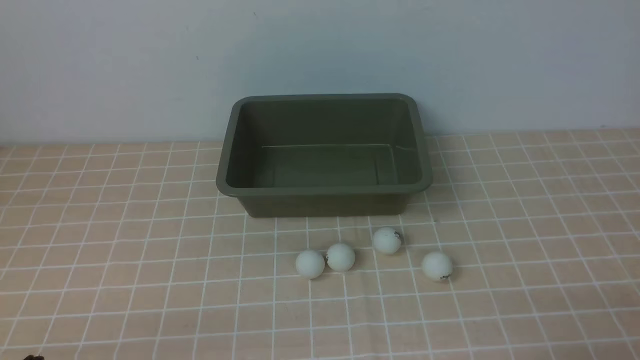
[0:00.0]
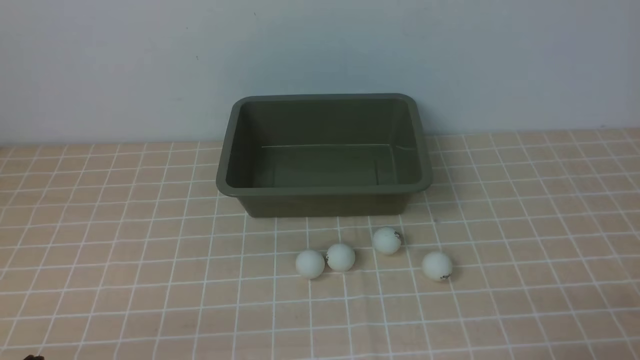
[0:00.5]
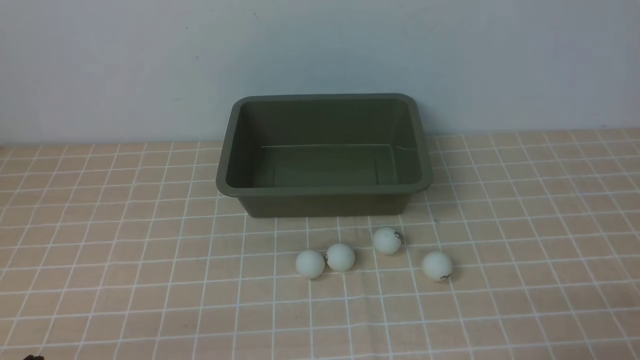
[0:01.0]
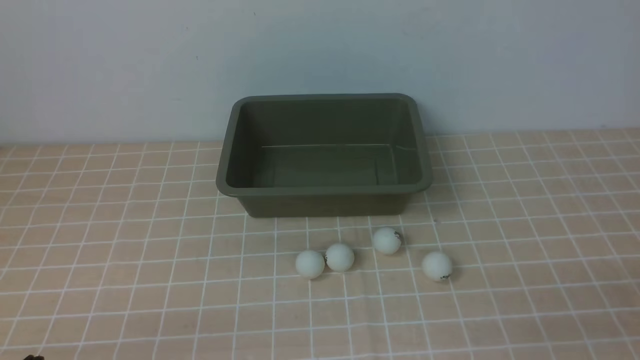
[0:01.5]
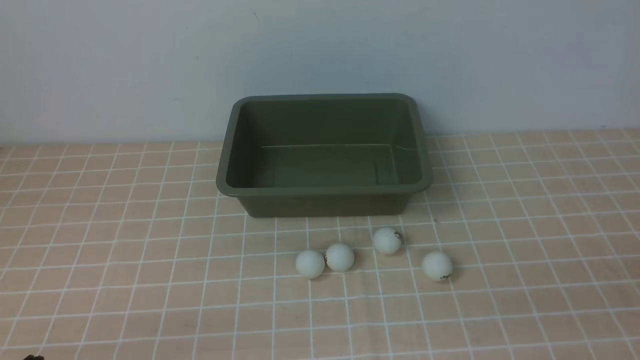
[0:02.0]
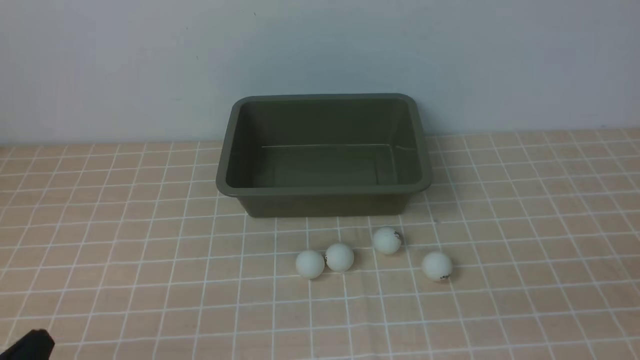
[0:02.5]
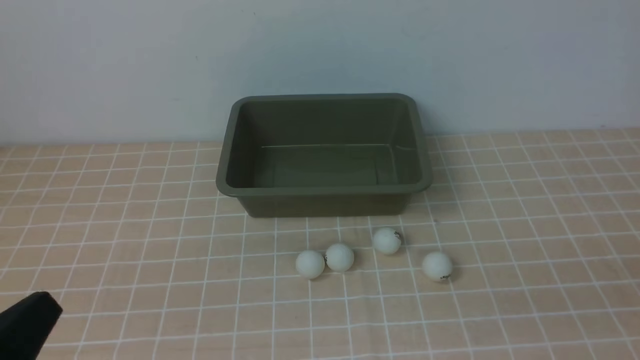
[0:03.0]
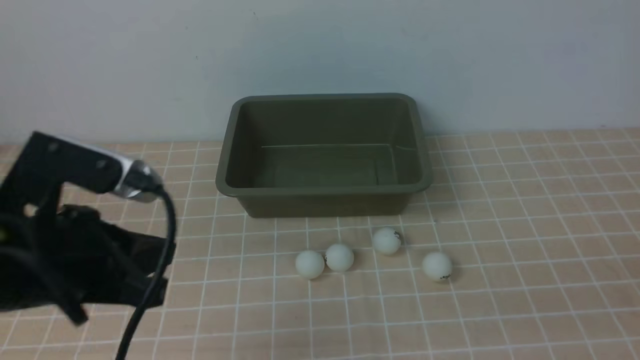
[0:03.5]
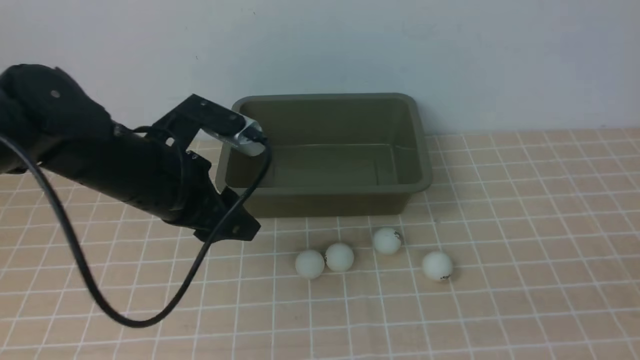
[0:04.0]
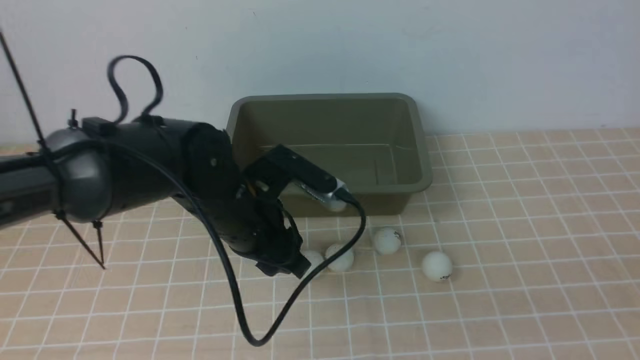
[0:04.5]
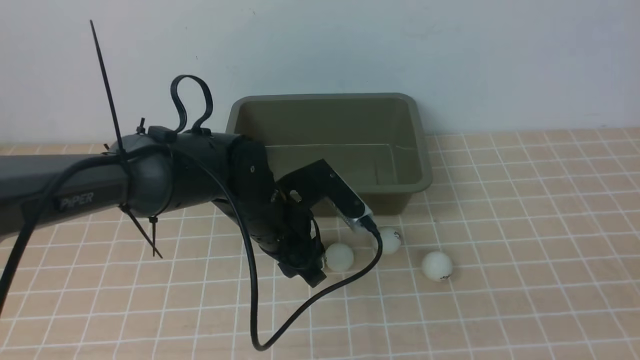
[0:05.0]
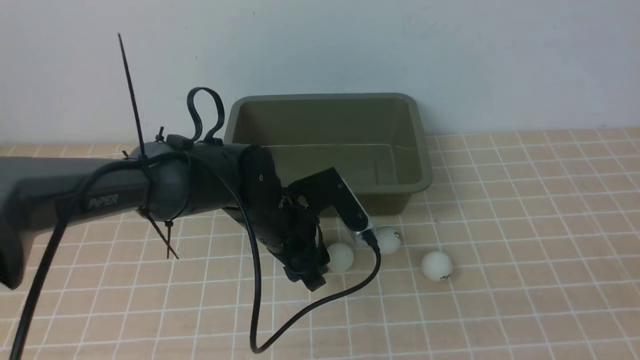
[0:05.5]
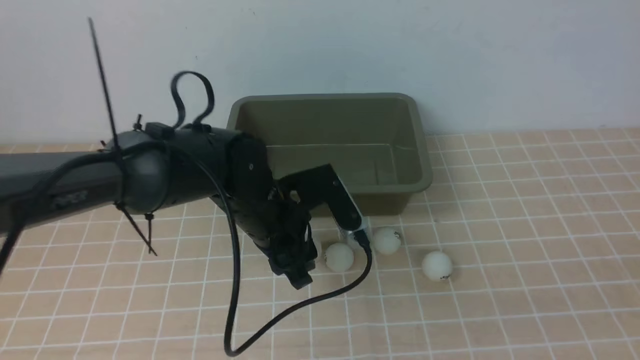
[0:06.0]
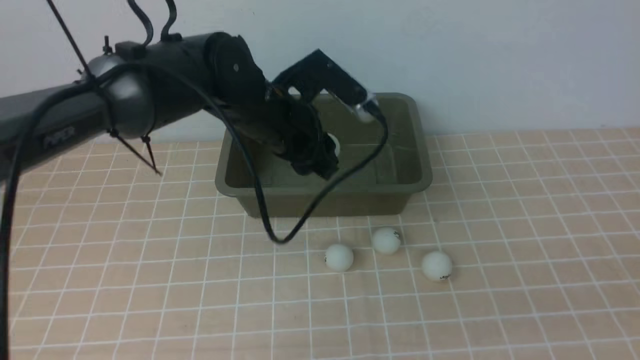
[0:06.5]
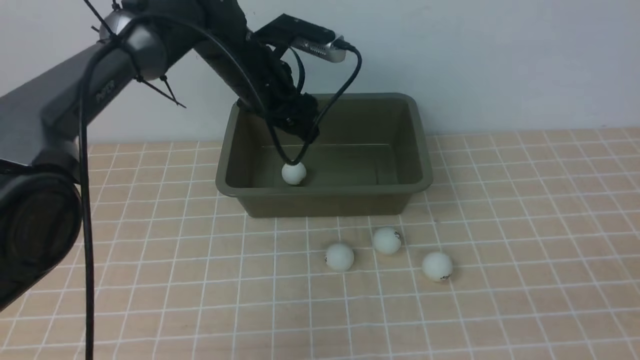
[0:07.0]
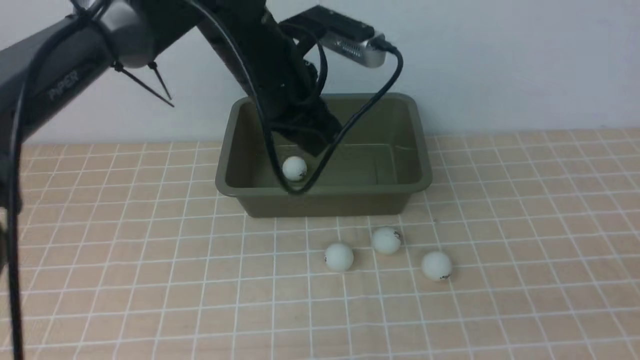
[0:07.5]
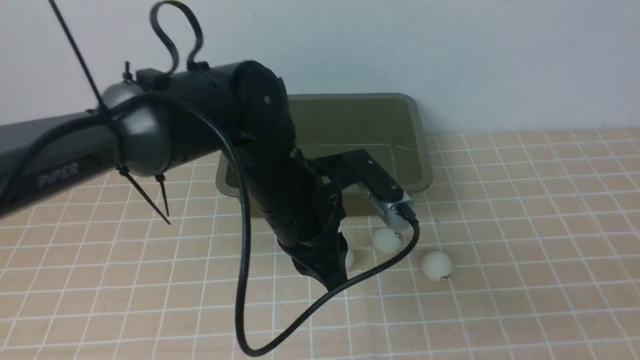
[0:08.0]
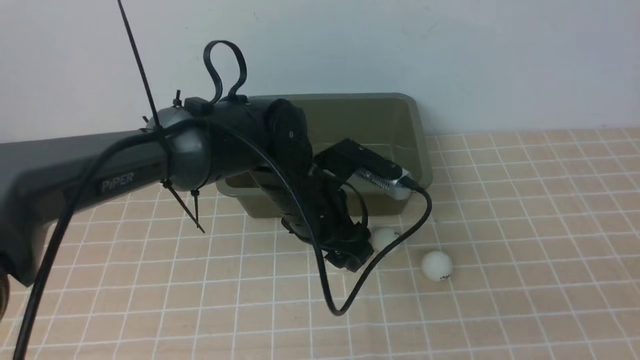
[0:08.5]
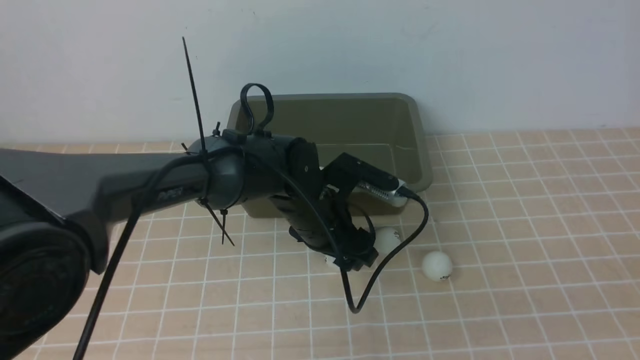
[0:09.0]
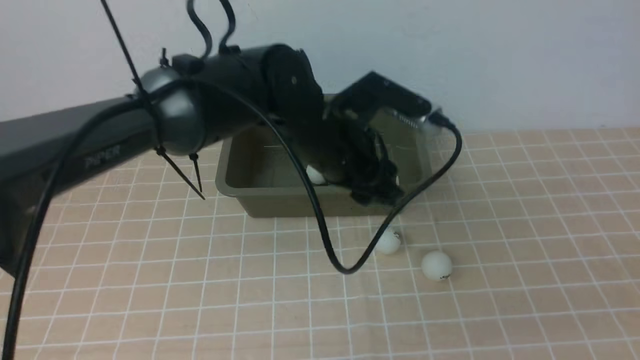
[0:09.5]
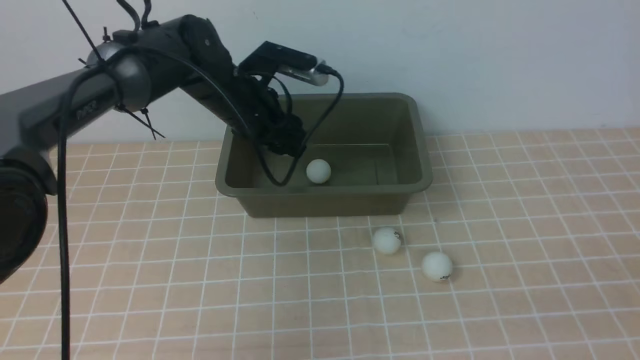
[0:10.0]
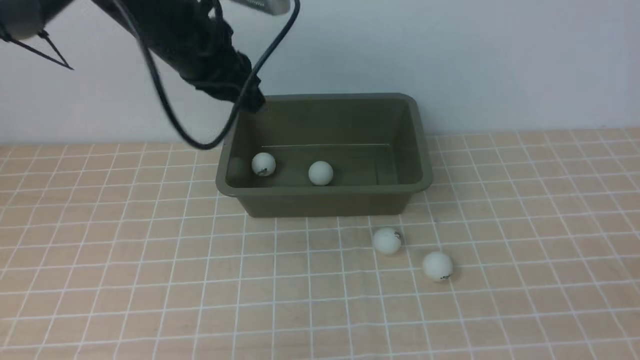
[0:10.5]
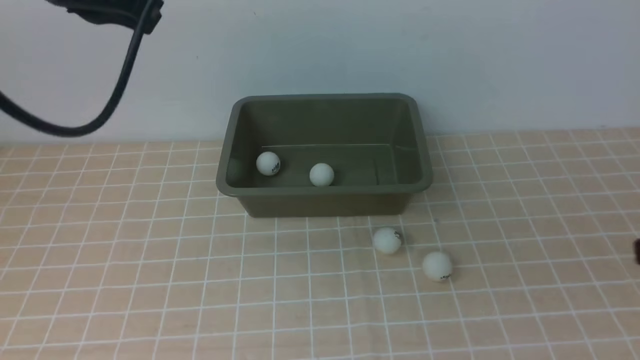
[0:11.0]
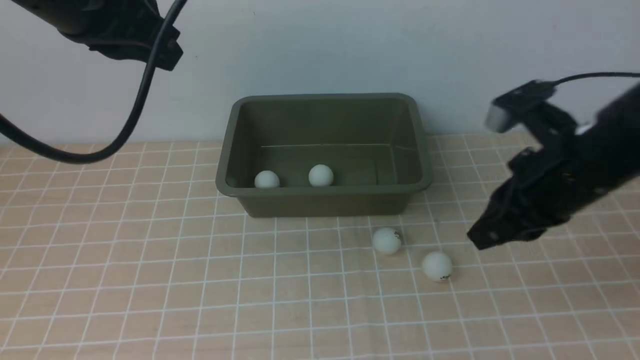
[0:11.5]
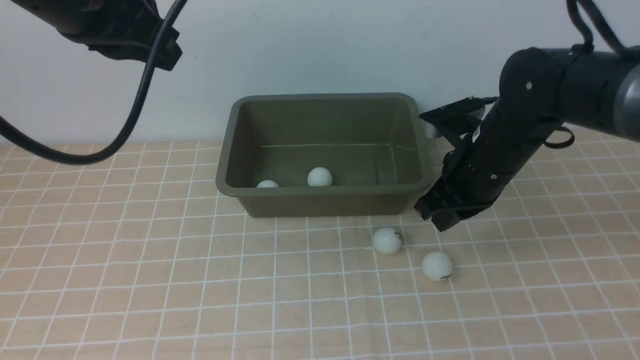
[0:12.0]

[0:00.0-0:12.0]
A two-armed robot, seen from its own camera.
Step, 0:00.0 to 0:06.0: use the left arm to clamp the table tennis ball closest to it.
Step, 0:06.5 to 0:07.0: use the left arm to put the table tennis ball into the box.
Step, 0:07.5 to 0:09.0: use the left arm to clamp the table tennis ball closest to it.
Step, 0:09.5 to 0:10.0: use the left arm to put the table tennis ball into the box.
0:02.0 to 0:04.0: The left gripper goes about 25 cm forward and to the right, and opens.
0:04.0 to 0:06.0: The left gripper shifts some 10 cm to the right and downward.
0:06.0 to 0:08.0: The left gripper reaches approximately 10 cm forward, then returns, and closes its fingers.
0:08.0 to 0:10.0: The left gripper moves forward and to the left, about 15 cm, and opens its fingers.
0:10.0 to 0:12.0: The left gripper travels upward and backward by about 25 cm, and closes its fingers. The right gripper heads forward and to the left, covering roughly 35 cm.

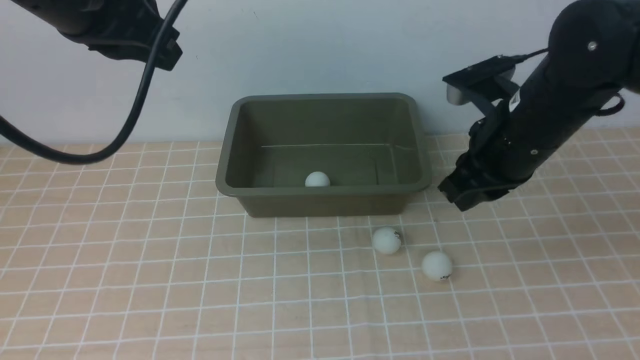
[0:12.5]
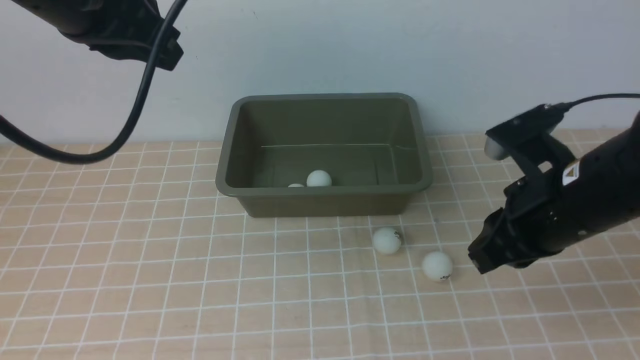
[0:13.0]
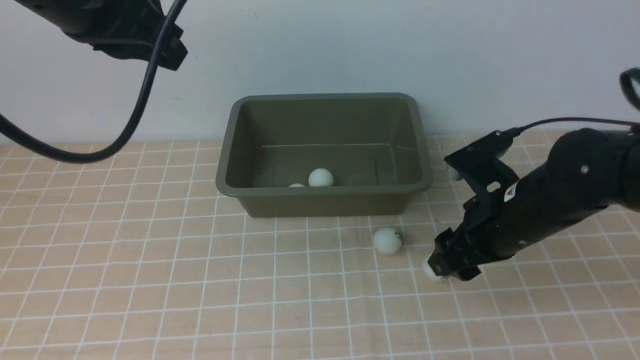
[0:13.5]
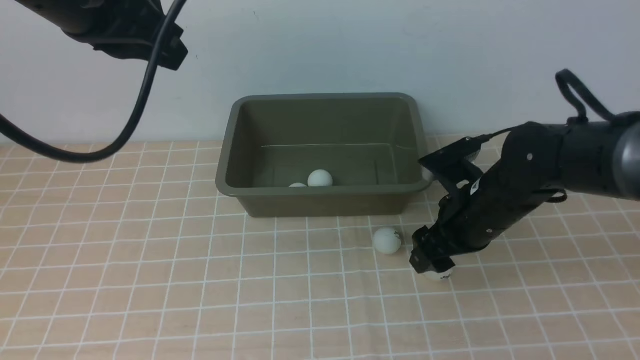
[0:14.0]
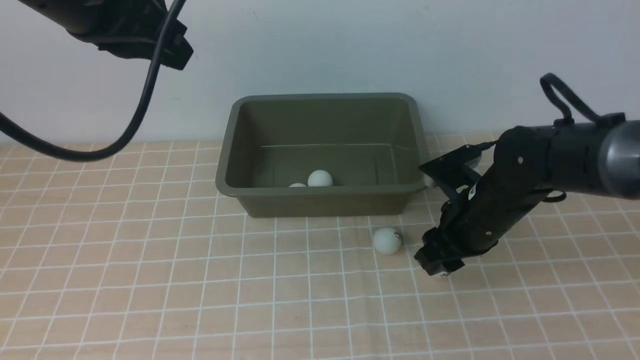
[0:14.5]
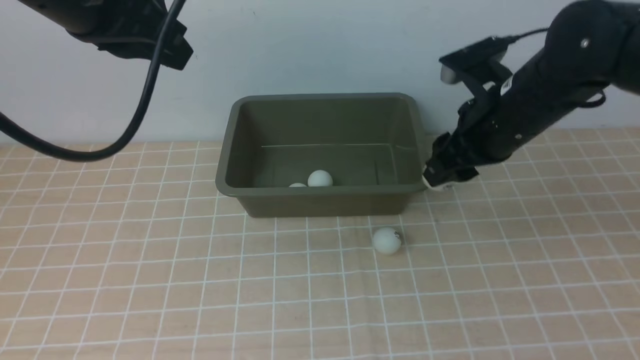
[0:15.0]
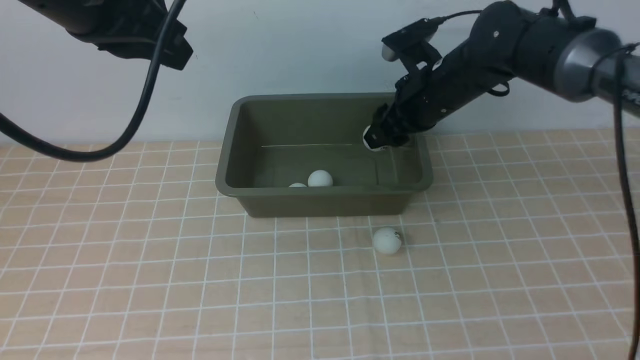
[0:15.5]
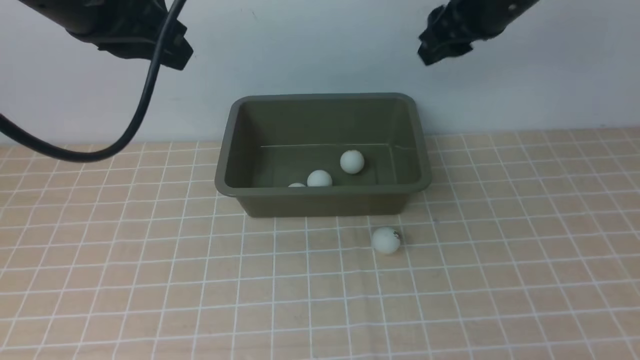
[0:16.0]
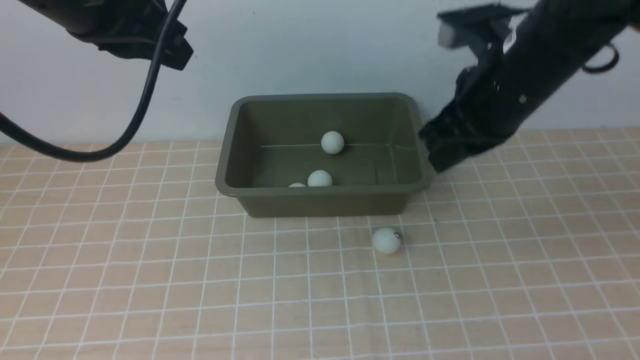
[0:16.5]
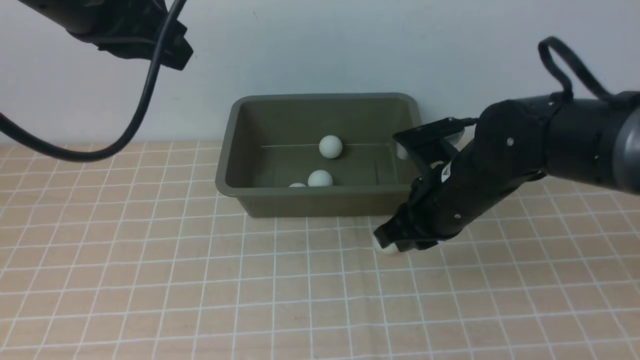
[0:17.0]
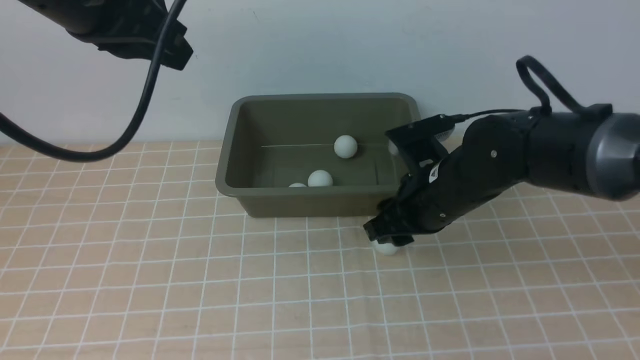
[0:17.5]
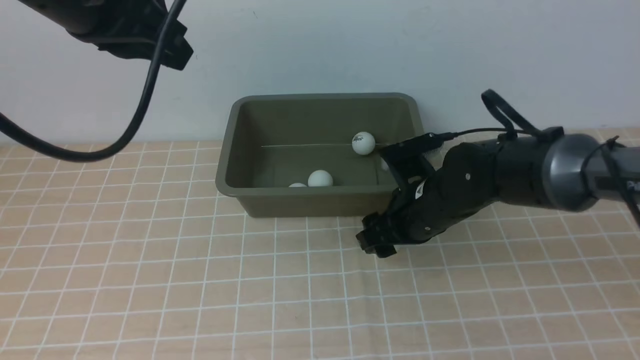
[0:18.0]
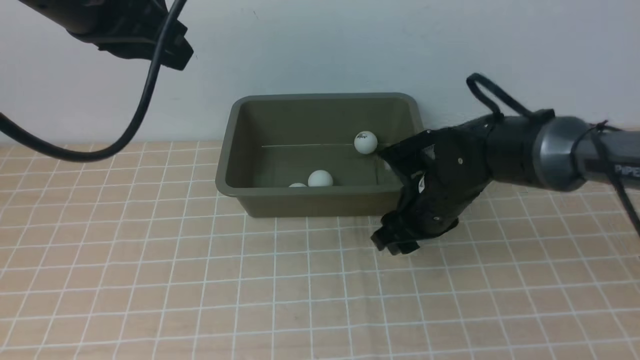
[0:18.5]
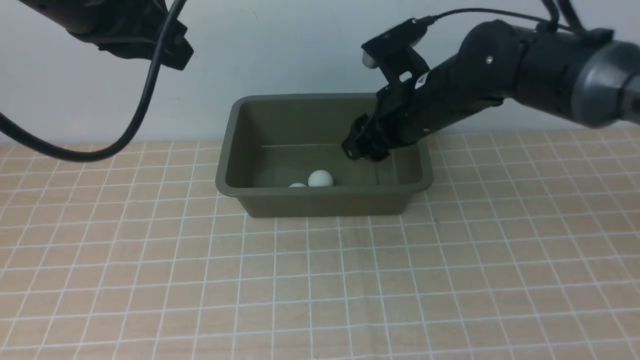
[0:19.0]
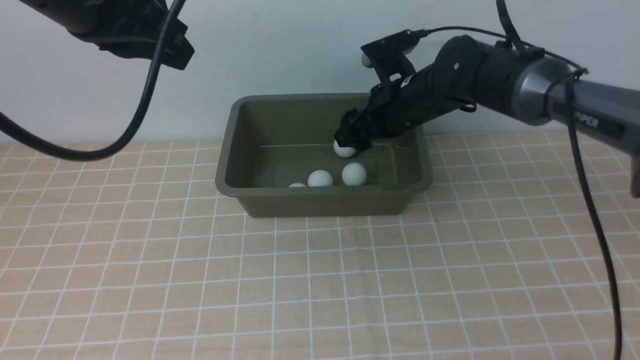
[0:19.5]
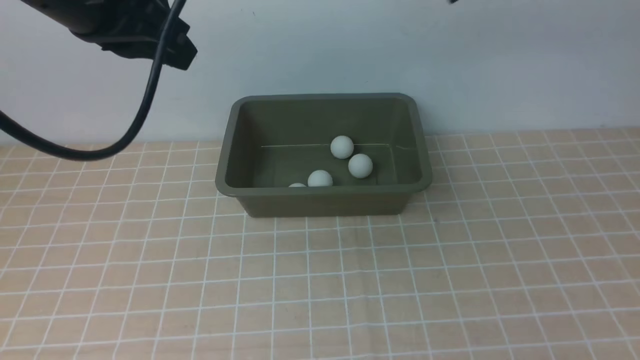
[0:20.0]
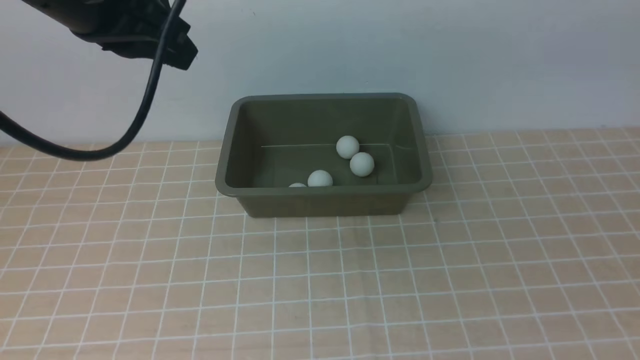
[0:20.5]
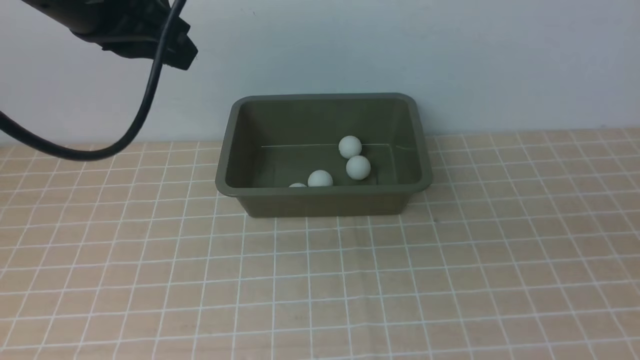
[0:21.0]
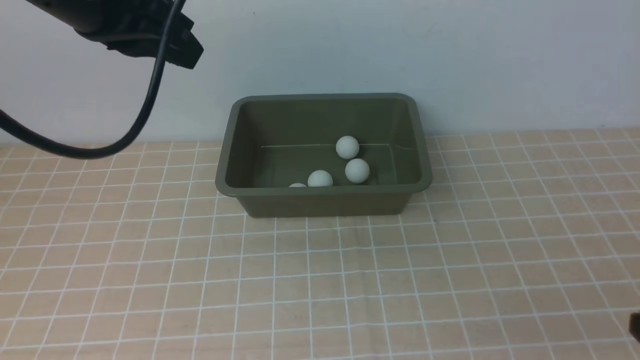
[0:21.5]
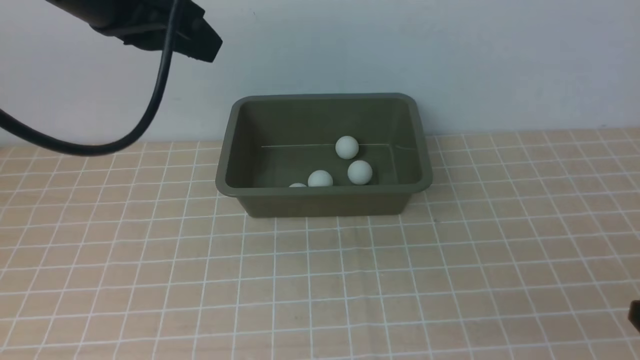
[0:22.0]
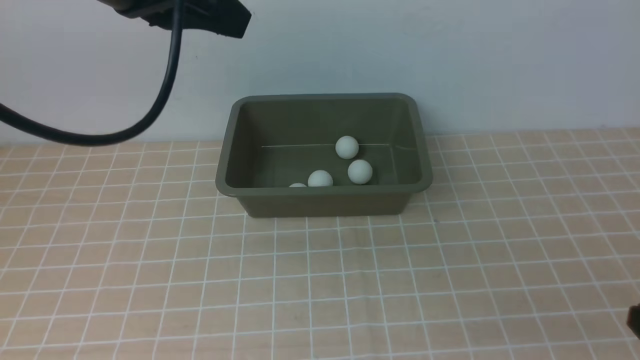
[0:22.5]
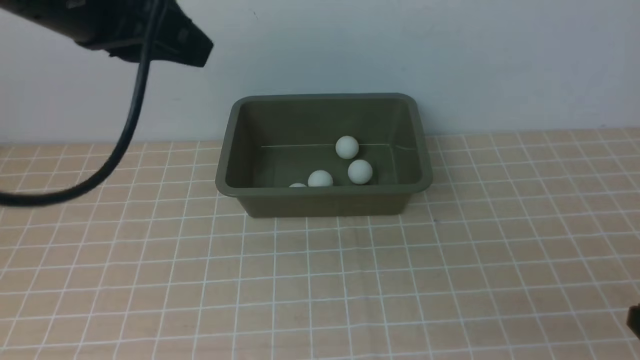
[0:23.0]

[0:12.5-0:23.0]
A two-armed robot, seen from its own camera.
Step, 0:13.0 to 0:15.5: use the right arm to put the table tennis ball into the box.
Step, 0:16.0 to 0:18.5: use the right arm to clamp the table tennis ball closest to it.
Step, 0:19.0 to 0:19.5: use the right arm to put the table tennis ball into the box.
0:12.5 to 0:14.5: The right gripper heads downward, covering about 10 cm, and opens its fingers.
0:14.5 to 0:16.5: The right gripper shifts approximately 15 cm upward, and closes.
0:16.5 to 0:19.0: The right gripper moves forward and downward, some 10 cm, and opens up.
0:19.0 to 0:21.0: The right gripper travels backward and to the right by roughly 30 cm, and closes.
0:21.0 to 0:23.0: The left gripper shifts by roughly 5 cm, while the right gripper moves downward and backward, roughly 10 cm.
